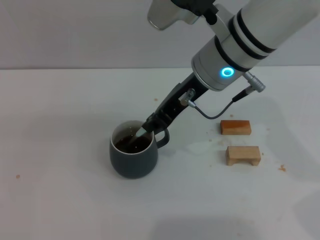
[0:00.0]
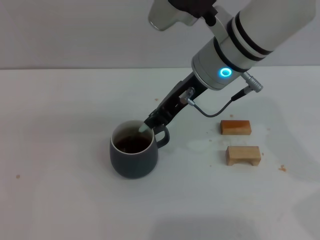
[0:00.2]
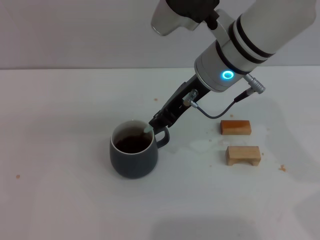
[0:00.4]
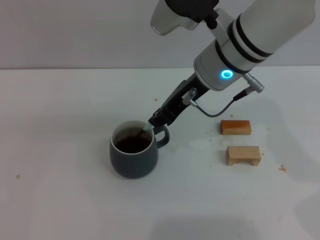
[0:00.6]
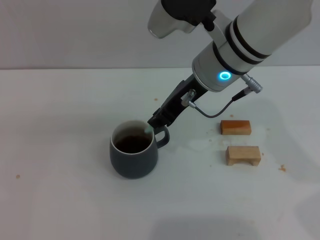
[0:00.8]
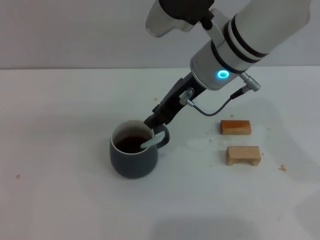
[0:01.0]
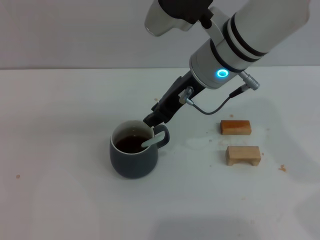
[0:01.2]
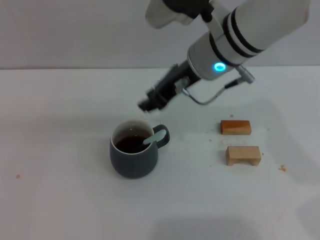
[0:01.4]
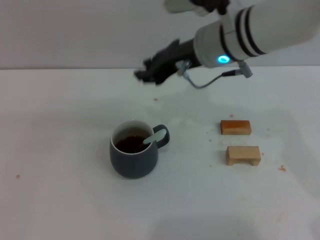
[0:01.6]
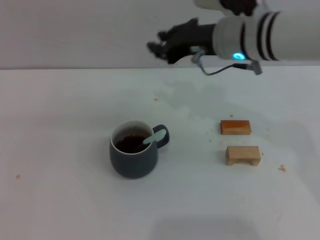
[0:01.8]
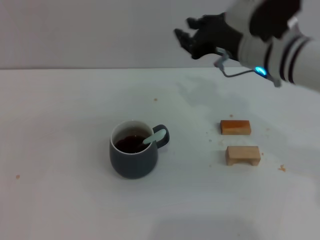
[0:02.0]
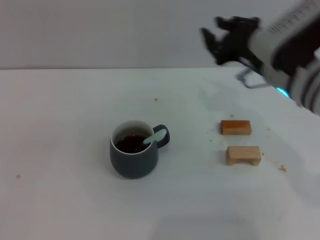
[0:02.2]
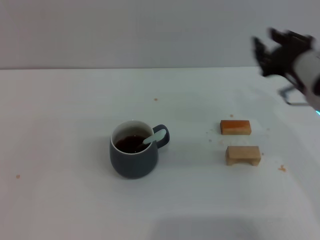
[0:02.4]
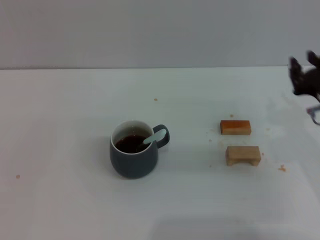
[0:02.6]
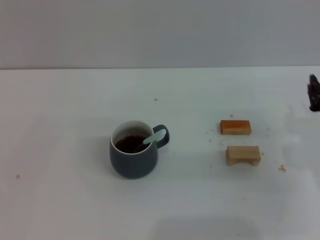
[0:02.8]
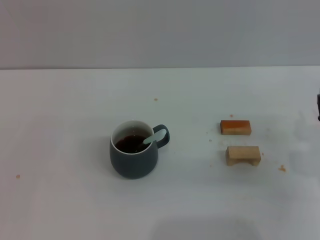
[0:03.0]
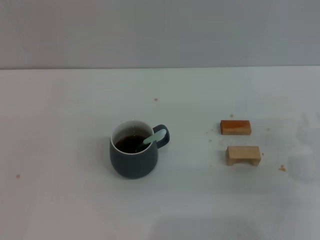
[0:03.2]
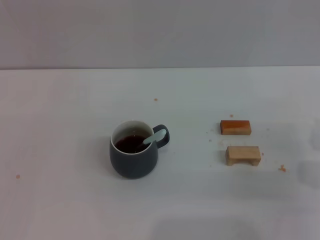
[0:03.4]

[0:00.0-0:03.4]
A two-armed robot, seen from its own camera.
Task of the whole recording: Move the grey cup to the center, lift the blue spoon, stir it three times in the cup, and put the spoon into the cup.
0:01.6 to 0:03.4: The right gripper heads to the right, downward and backward, covering roughly 30 cm.

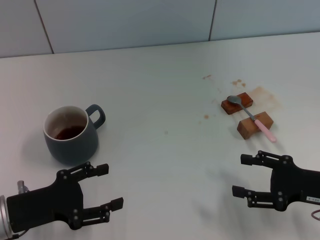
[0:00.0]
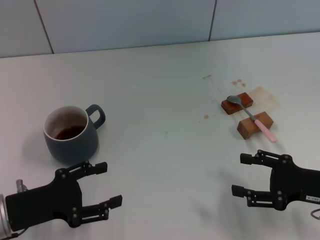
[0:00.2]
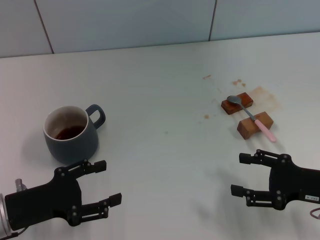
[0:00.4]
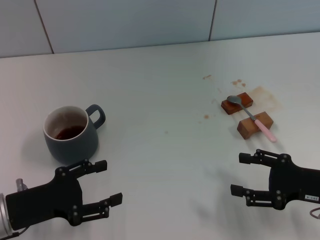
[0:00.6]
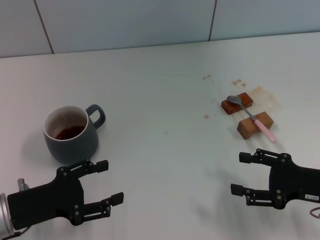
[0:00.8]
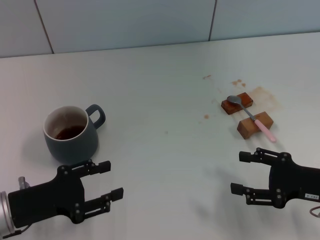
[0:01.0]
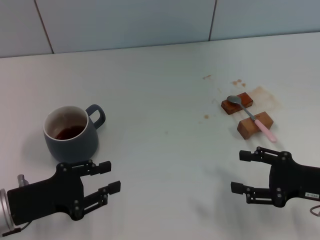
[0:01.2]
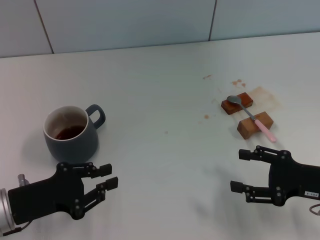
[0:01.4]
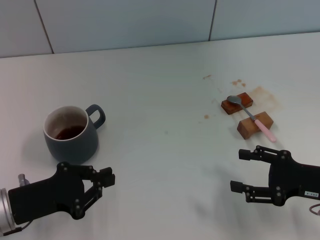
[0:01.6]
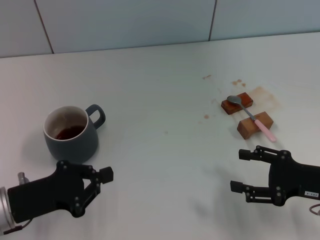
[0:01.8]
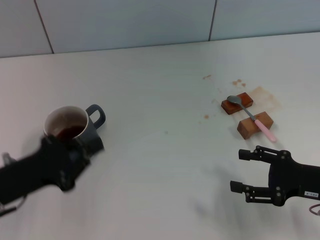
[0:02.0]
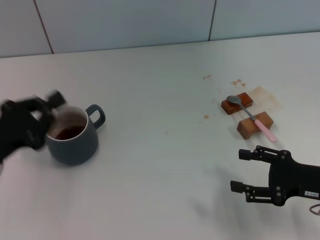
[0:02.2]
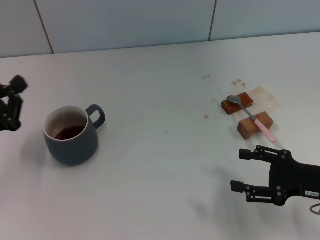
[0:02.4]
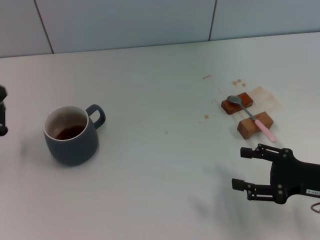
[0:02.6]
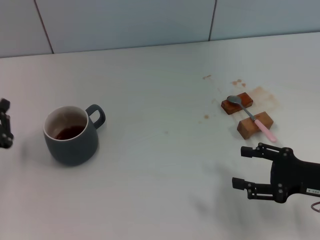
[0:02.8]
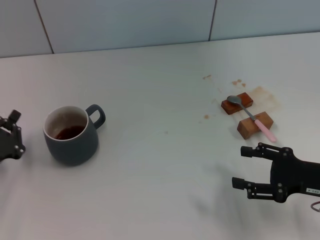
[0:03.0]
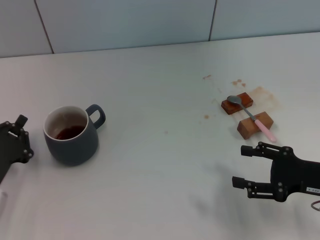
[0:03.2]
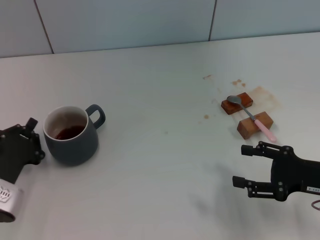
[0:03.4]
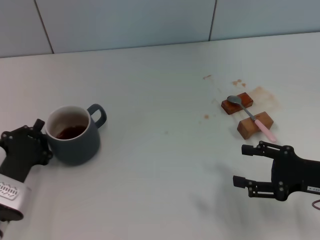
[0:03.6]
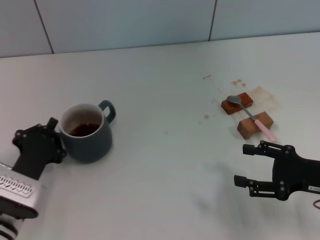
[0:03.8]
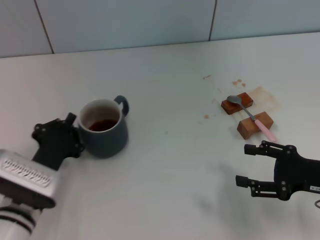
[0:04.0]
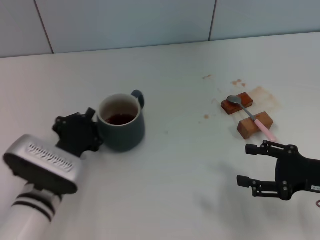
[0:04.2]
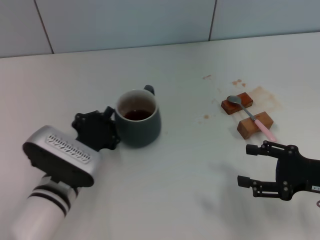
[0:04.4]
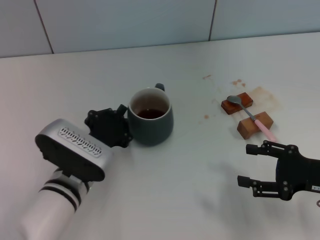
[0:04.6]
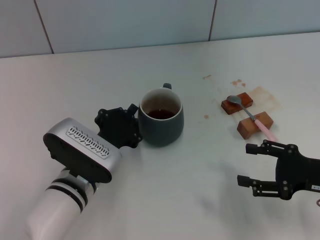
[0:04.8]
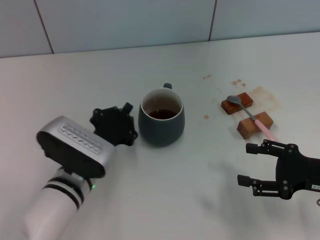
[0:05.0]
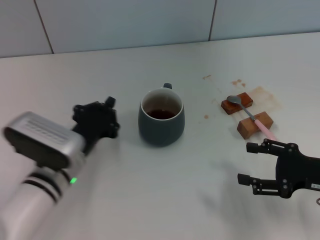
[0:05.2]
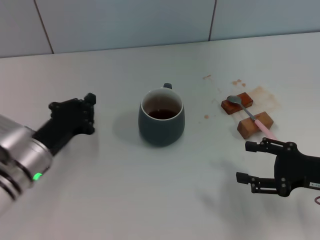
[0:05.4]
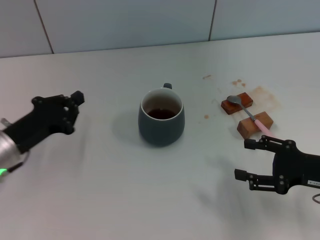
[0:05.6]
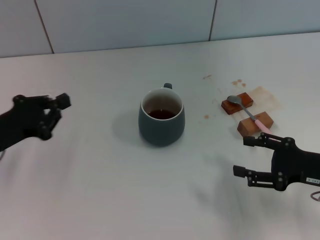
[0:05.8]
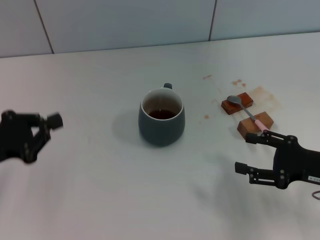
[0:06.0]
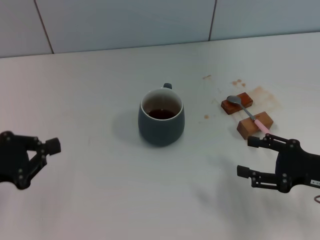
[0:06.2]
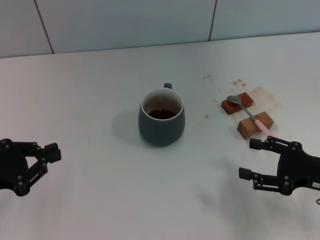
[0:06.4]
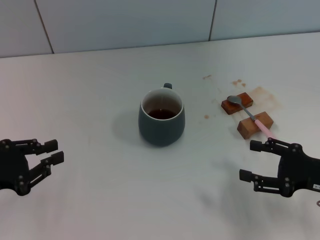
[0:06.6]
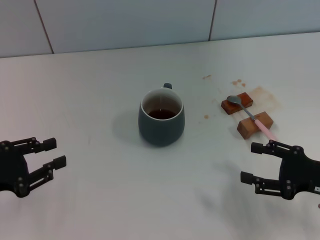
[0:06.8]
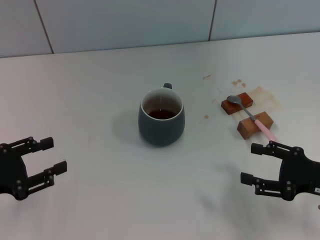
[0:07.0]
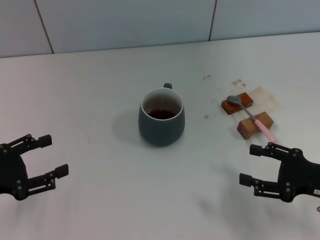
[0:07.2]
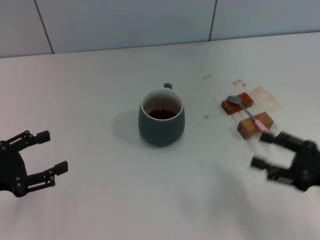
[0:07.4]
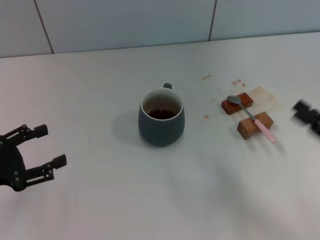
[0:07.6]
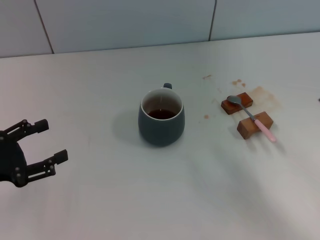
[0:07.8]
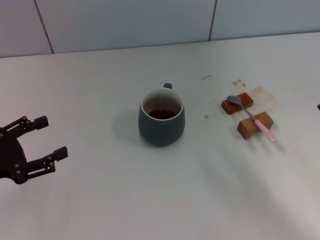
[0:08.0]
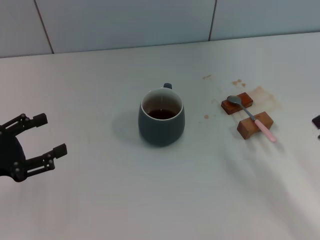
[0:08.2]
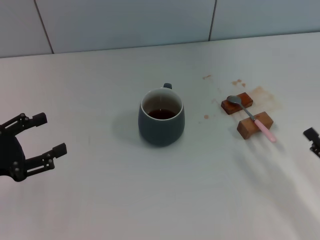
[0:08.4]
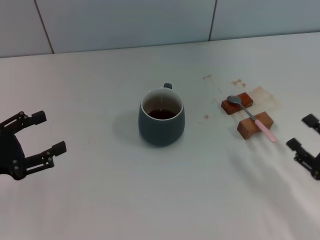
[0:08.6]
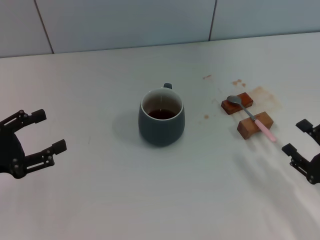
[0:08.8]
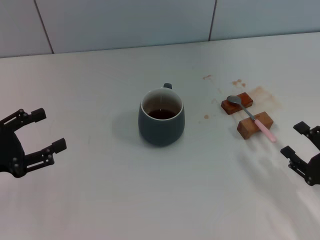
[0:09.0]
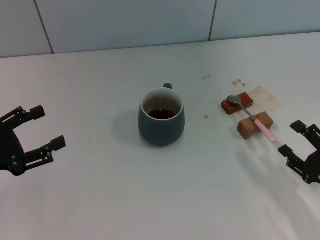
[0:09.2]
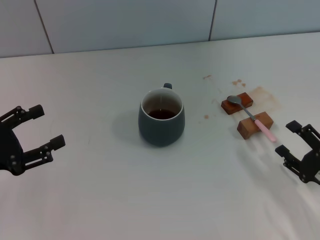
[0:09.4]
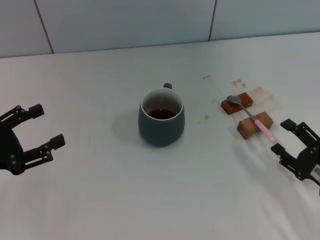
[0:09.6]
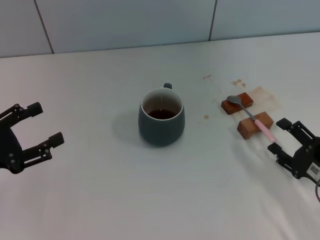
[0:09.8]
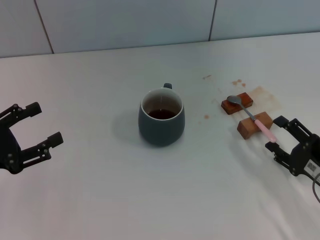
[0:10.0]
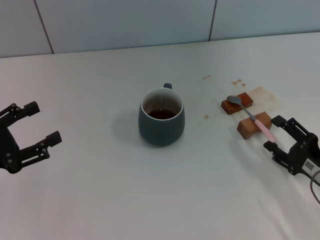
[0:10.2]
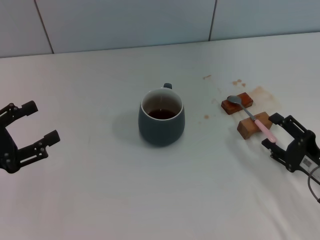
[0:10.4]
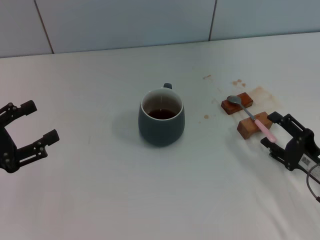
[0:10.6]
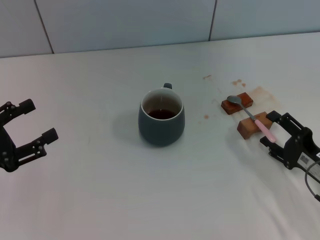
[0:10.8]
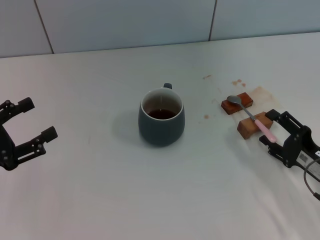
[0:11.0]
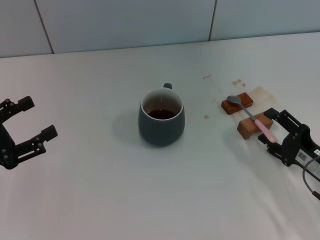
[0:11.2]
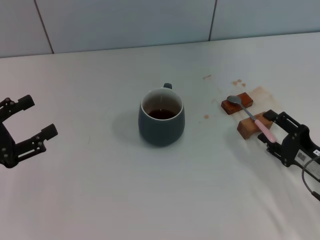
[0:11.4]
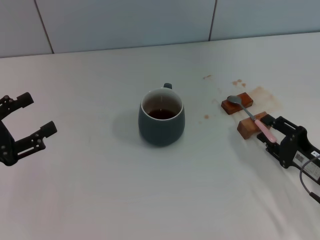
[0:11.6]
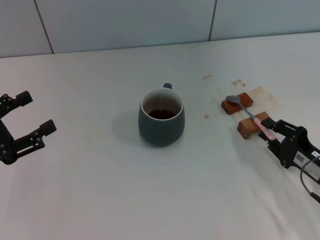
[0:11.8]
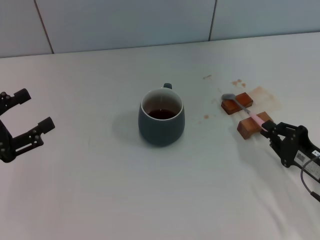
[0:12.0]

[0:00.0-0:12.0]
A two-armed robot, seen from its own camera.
Task of the whole recording: Move the grey cup to the center, lift the pink spoon, stir it three times in the cup, and put the spoon into the cup.
Step, 0:00.0 to 0:04.8: Move the cup with coffee to the center of view with the left gripper.
0:00.0 to 0:01.6: The left gripper closes up.
0:03.0 to 0:04.4: The left gripper moves to the right, about 15 cm.
0:04.4 to 0:06.0: The left gripper heads to the left and upward, covering roughly 20 cm.
0:06.0 to 0:07.6: The left gripper opens up. The right gripper moves backward, some 5 cm.
0:07.6 to 0:09.0: The right gripper goes approximately 5 cm downward.
0:09.0 to 0:10.4: The grippers stay close to where they were, moving slightly.
0:10.4 to 0:12.0: The right gripper closes its fingers.

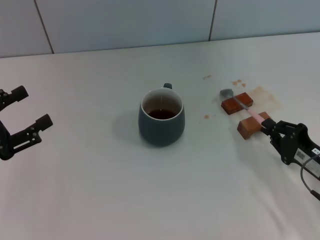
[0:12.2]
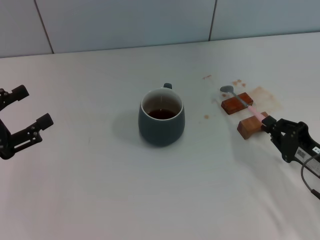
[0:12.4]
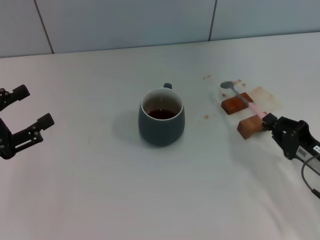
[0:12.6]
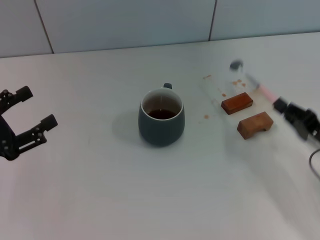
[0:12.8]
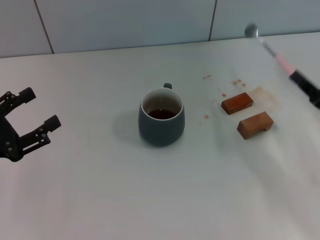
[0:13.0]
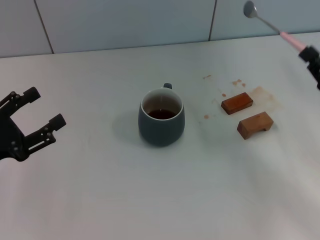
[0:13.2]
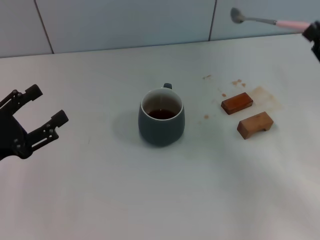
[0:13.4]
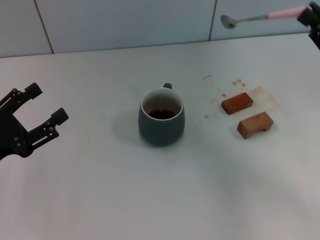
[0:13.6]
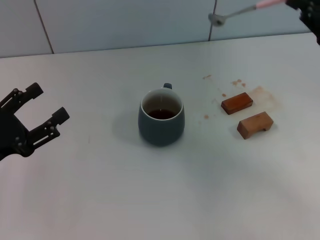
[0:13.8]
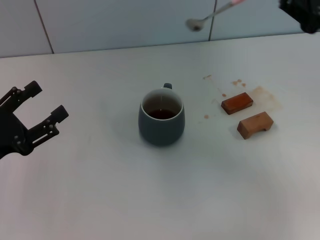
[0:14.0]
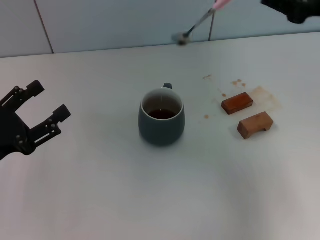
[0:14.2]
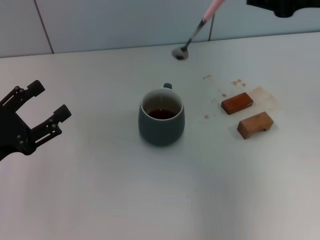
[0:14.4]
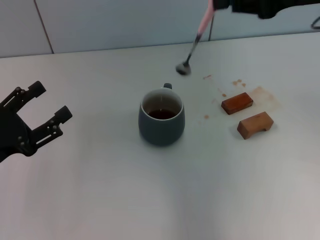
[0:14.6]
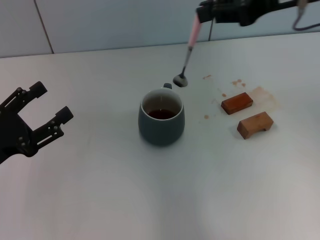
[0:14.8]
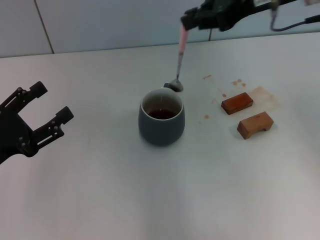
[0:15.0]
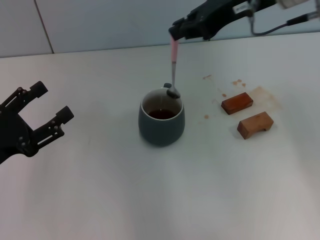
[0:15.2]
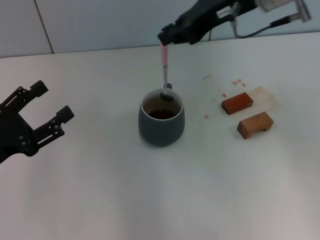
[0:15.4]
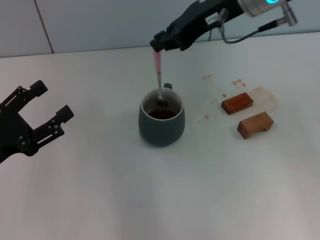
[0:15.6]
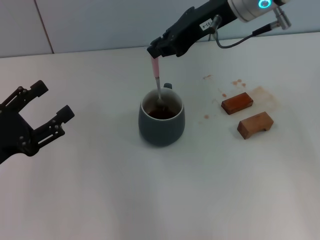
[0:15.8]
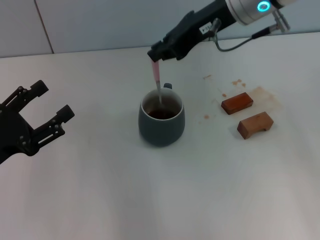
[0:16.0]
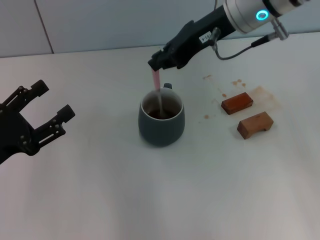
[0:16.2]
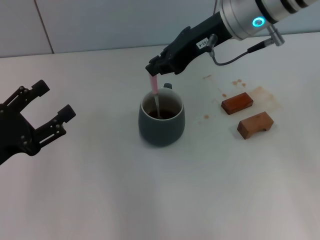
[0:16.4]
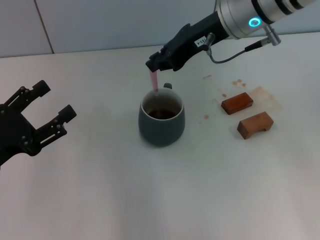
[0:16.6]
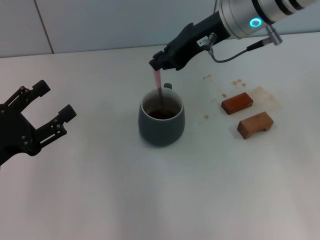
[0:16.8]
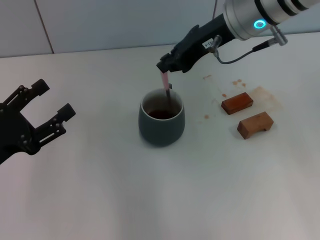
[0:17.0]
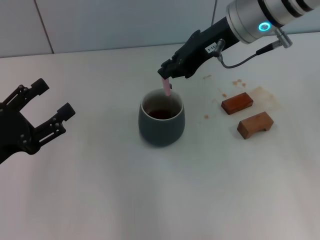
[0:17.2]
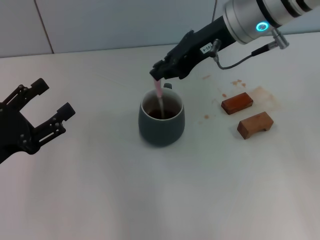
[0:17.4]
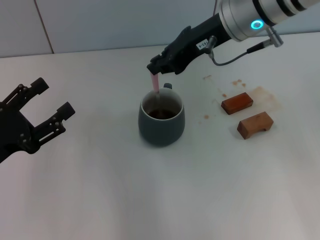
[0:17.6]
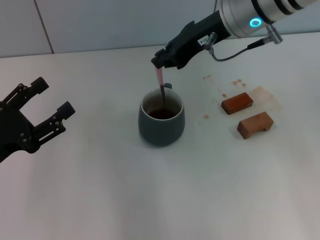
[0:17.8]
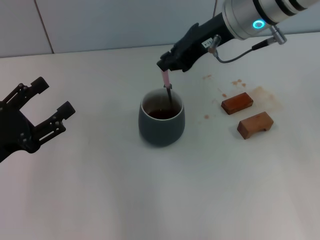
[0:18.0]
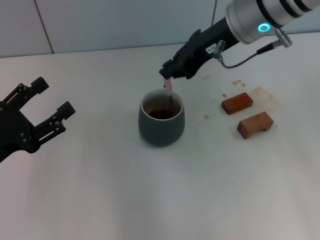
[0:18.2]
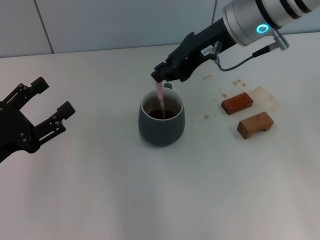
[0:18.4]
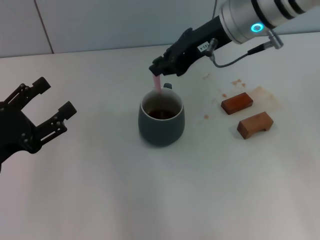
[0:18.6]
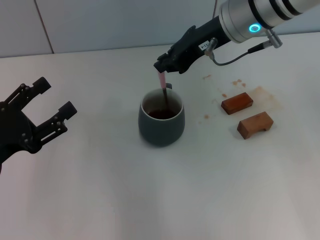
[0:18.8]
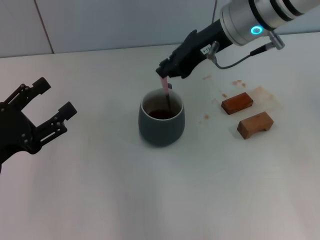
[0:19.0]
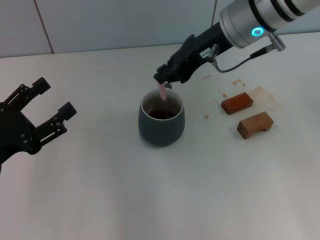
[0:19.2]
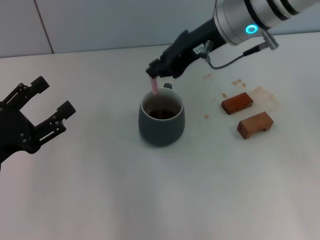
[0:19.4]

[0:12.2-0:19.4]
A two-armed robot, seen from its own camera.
Task of the whole recording: Move the grey cup to the center, lift the pink spoon, stir it three times in the cup, and put the spoon into the cup.
0:12.2 to 0:13.6: The right gripper is displaced upward and forward by approximately 15 cm.
0:13.6 to 0:15.0: The right gripper shifts some 20 cm upward, to the left and forward.
0:15.0 to 0:16.6: The right gripper heads to the left, covering approximately 5 cm.
0:16.6 to 0:19.4: The grippers move only a little.
